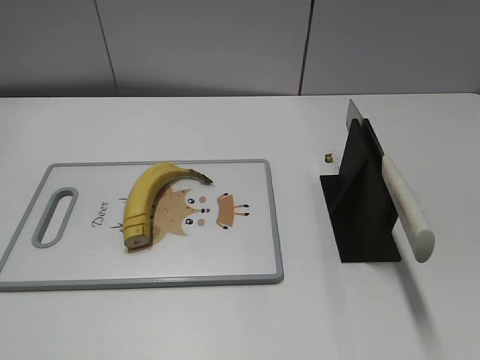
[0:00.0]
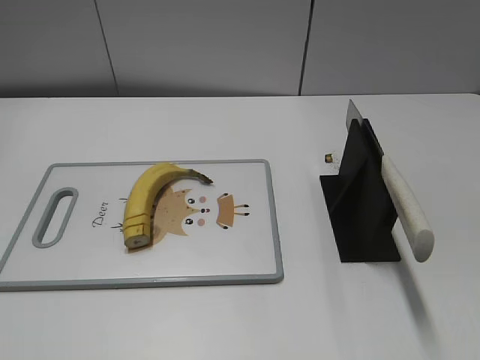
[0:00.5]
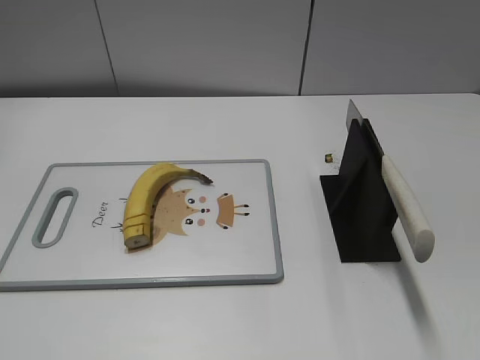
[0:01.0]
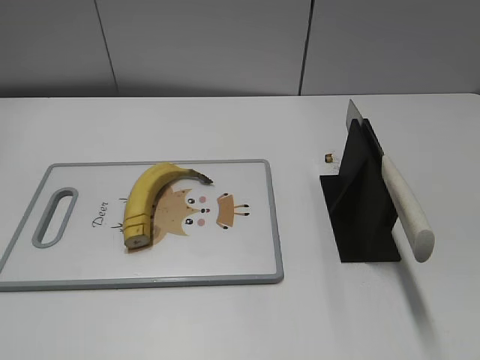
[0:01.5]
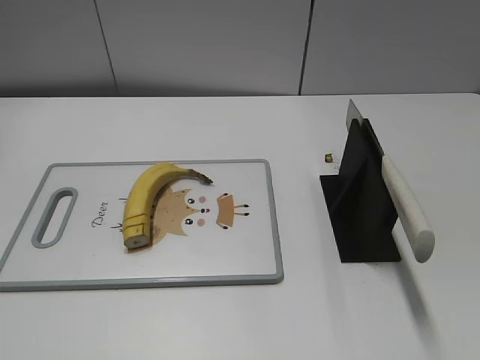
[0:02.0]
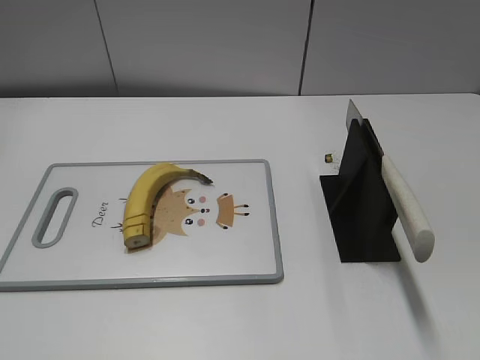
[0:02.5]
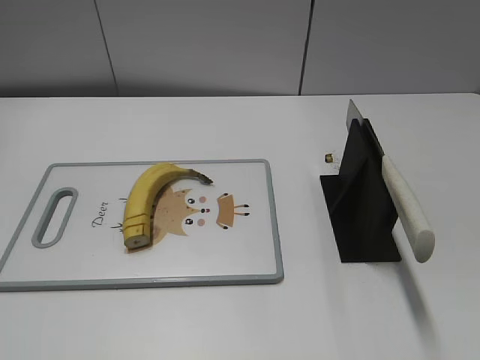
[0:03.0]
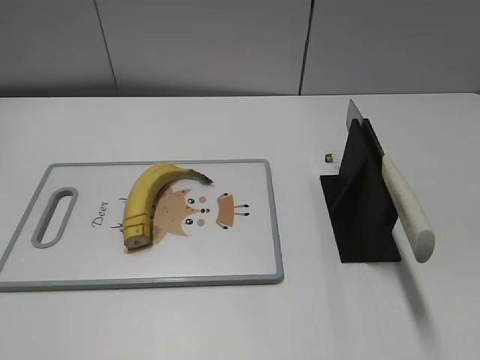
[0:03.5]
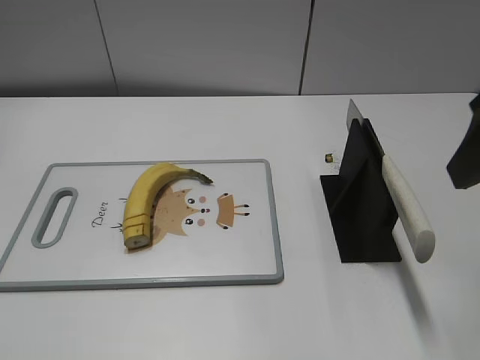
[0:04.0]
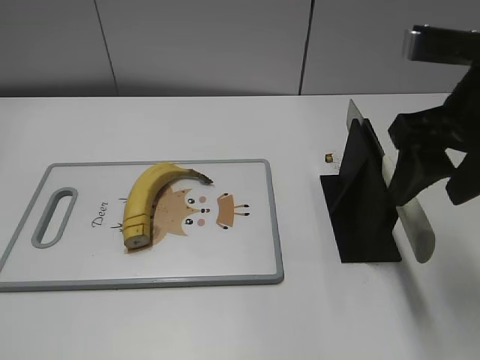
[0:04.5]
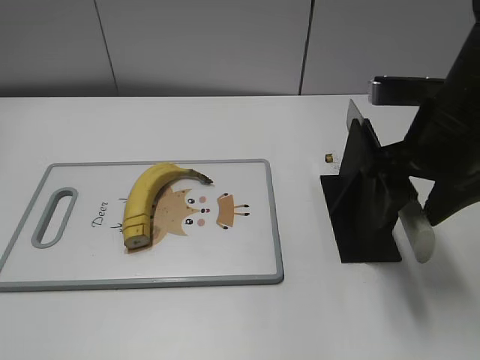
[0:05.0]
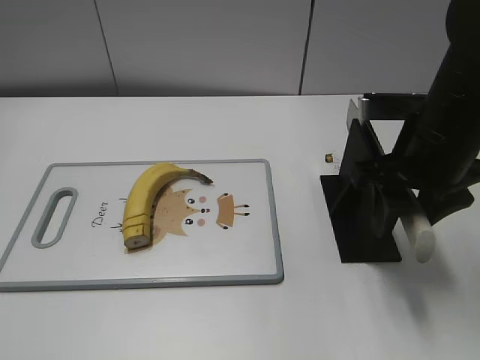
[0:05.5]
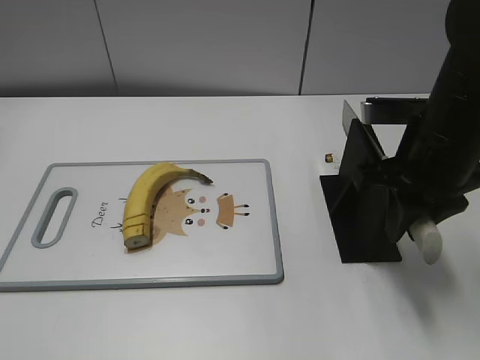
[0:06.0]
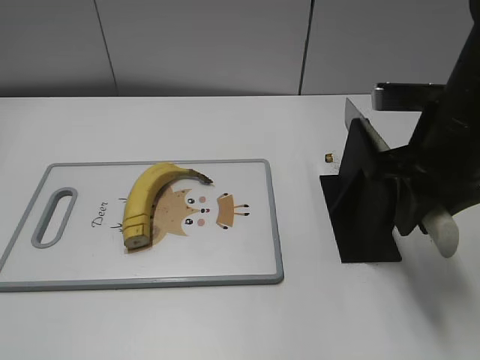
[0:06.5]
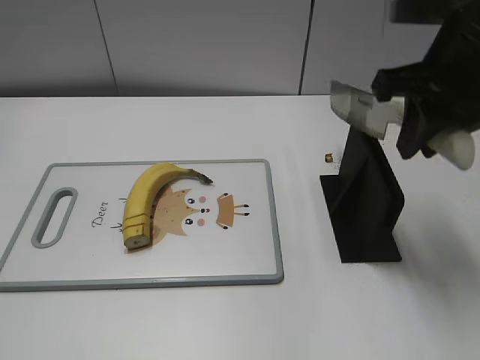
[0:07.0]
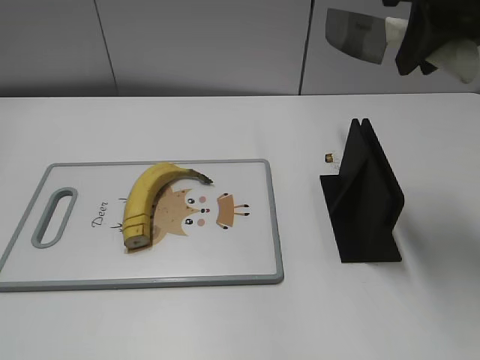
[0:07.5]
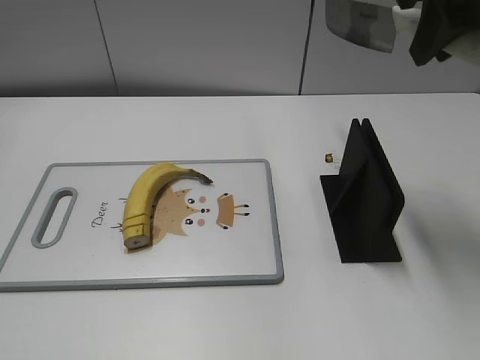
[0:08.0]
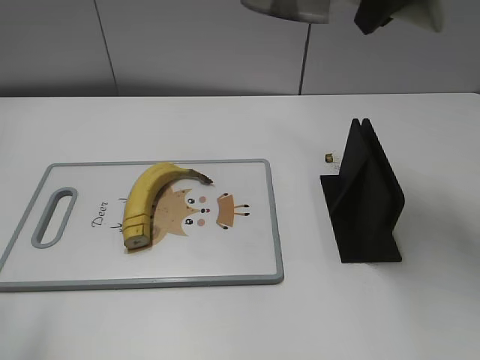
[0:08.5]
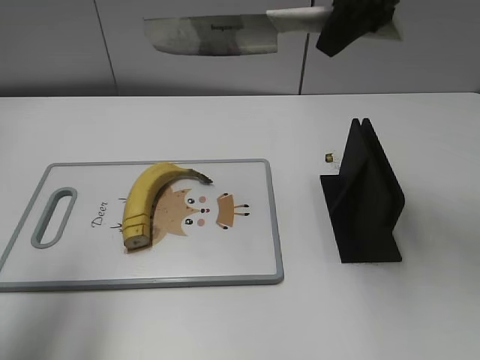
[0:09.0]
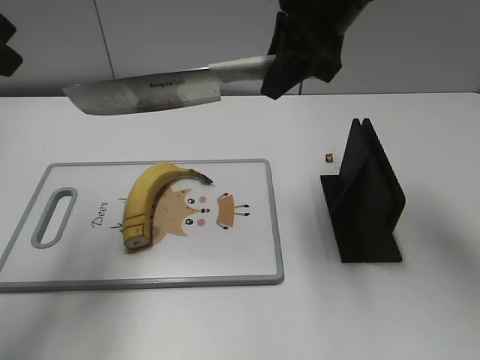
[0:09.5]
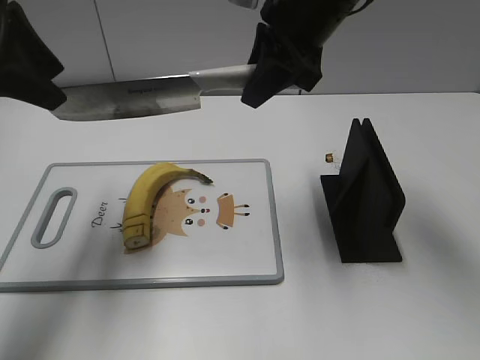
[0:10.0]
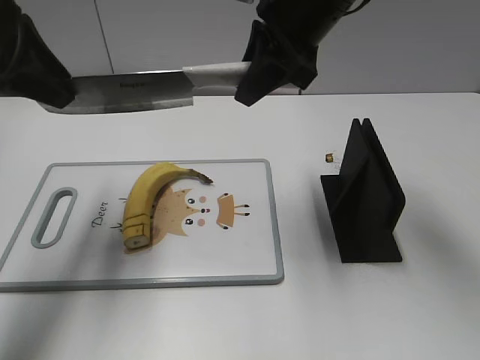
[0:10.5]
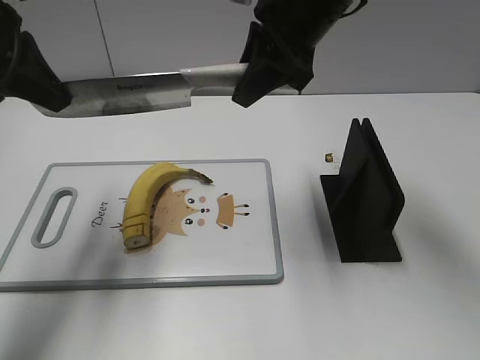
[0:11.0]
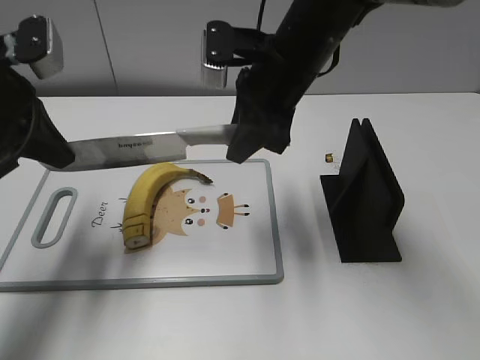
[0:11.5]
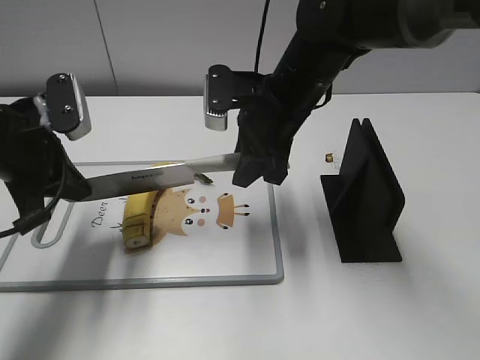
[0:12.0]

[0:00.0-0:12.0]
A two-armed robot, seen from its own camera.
Task of the whole recording: cut banana.
Step, 0:00.0 to 0:07.0: Grab the knife handle with your right hand.
0:02.0 to 0:04.0: The right gripper is displaced forward by some 20 cm.
0:04.0 to 0:06.0: The right gripper heads downward and forward, covering about 15 cm, and closes its fingers.
0:06.0 to 0:08.0: The right gripper goes roughly 15 cm upward.
0:08.0 to 0:10.0: The left gripper travels forward by approximately 30 cm. The right gripper shifts approximately 15 cm to the left, downward and forward.
0:10.0 to 0:12.0: Both grippers move downward, approximately 10 cm. The left gripper closes up.

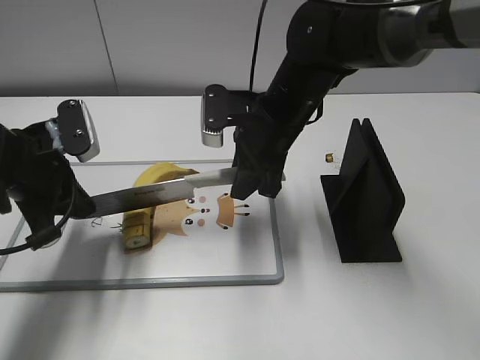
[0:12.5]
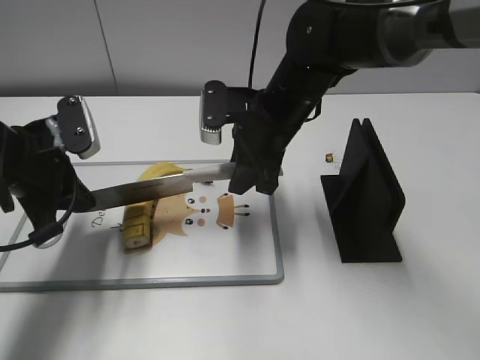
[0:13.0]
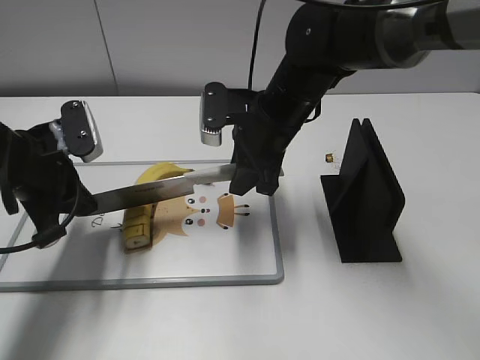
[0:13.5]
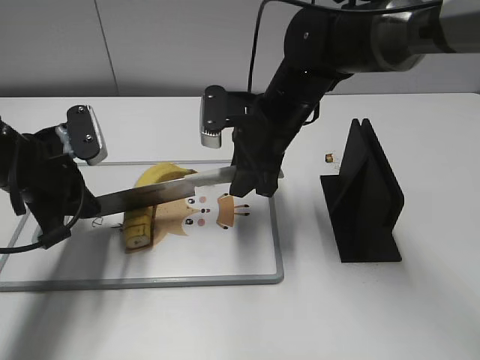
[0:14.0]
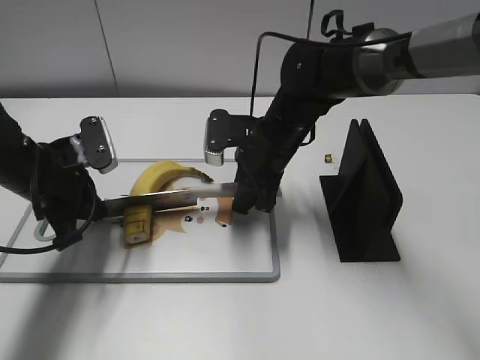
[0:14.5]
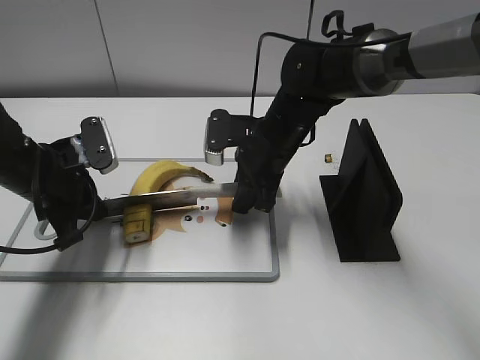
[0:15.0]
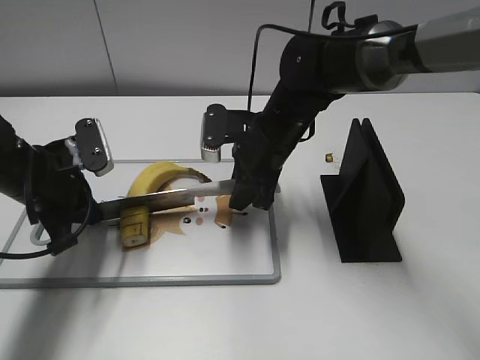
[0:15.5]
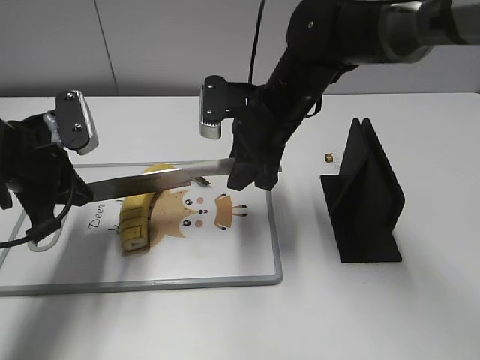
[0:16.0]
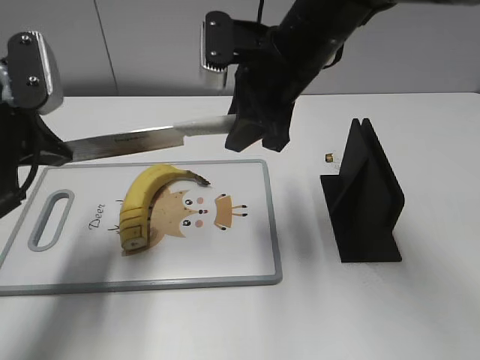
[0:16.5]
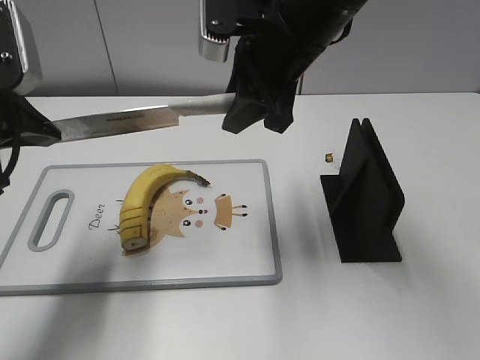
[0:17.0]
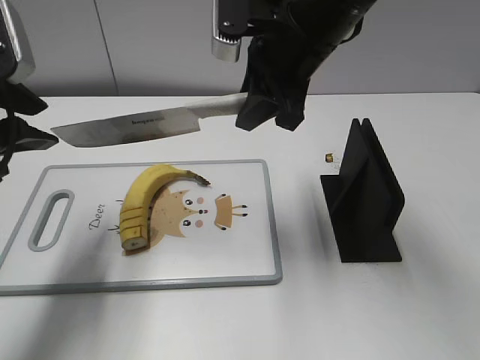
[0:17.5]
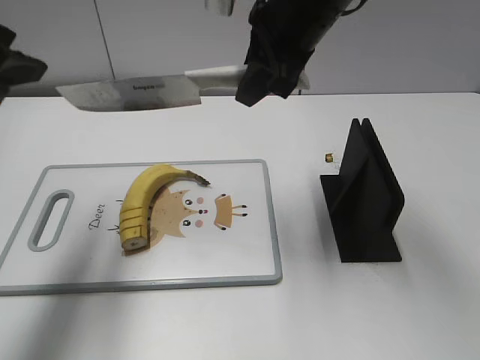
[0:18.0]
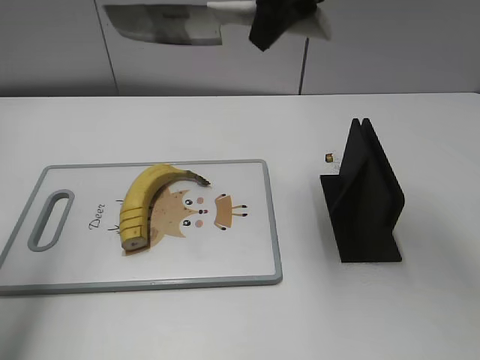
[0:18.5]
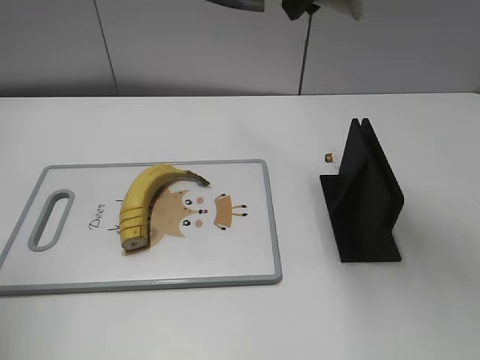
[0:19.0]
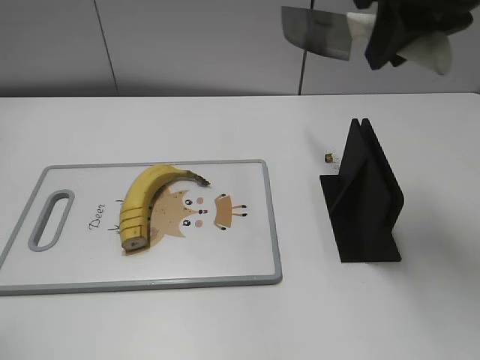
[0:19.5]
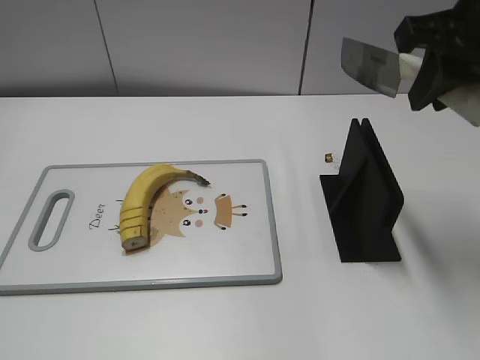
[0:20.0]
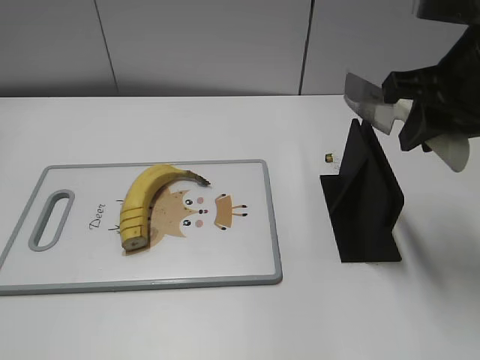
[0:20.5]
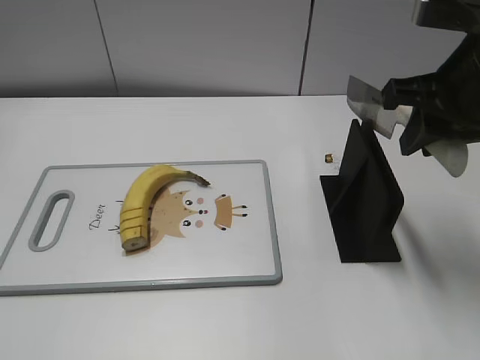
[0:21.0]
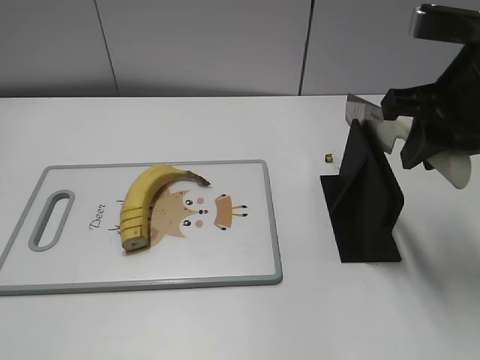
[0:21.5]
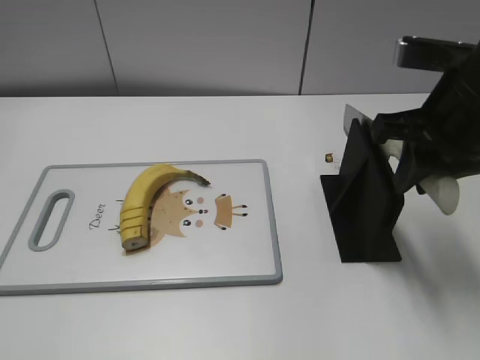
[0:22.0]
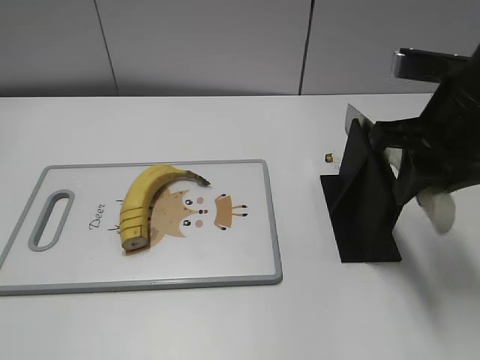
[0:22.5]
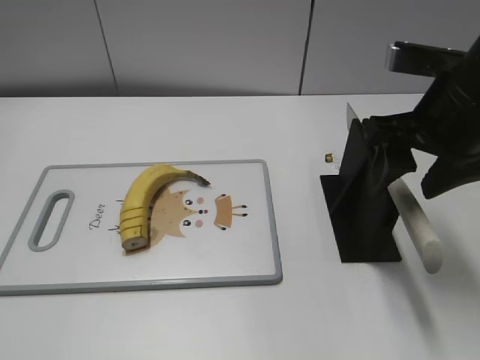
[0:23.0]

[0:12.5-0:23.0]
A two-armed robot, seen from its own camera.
Task of the whole recording: cut banana.
Step, 0:13.5 to 0:19.0: Cut the banana with your right hand.
Step, 0:19.5 to 0:21.5: Lift the knife with your right hand.
0:12.5 to 0:14.5: The left gripper moves roughly 5 cm, while the right gripper goes approximately 5 cm downward.
0:14.5 to 0:16.5: Both grippers move upward, about 15 cm.
0:16.5 to 0:19.0: The right gripper heads upward, covering roughly 15 cm, while the left gripper shifts roughly 20 cm upward and to the left, and opens.
0:19.0 to 0:21.0: The right gripper is displaced to the right, downward and backward by some 15 cm. The left gripper travels backward and downward by approximately 25 cm.
0:21.0 to 0:23.0: The right gripper opens.

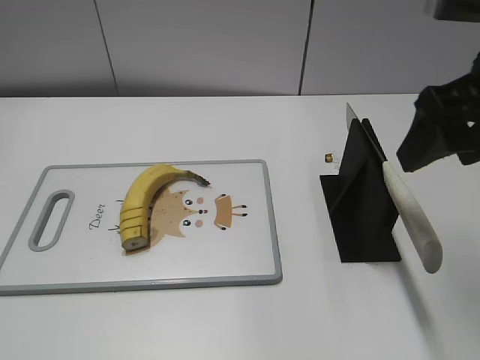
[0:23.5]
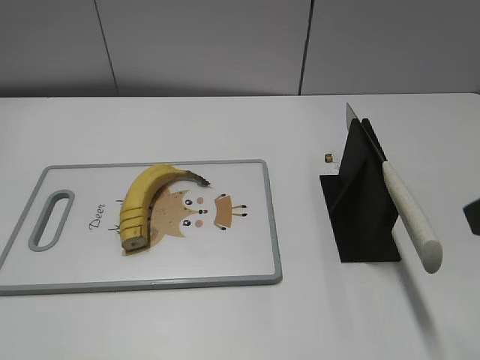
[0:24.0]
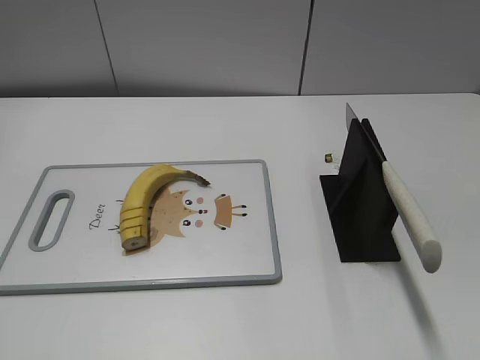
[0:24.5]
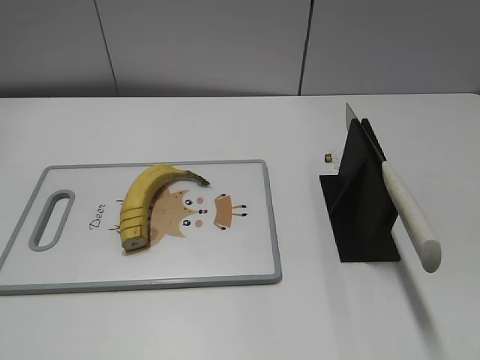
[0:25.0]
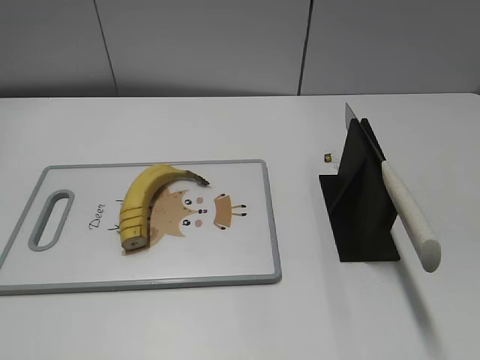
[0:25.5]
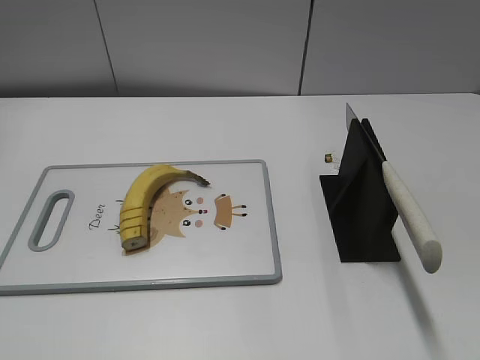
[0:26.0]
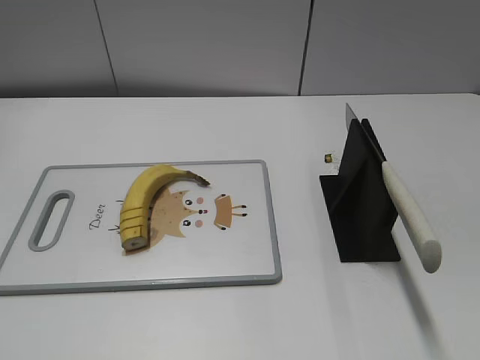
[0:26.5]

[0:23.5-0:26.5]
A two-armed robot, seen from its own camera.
Task of the whole recording: cut banana.
Step, 0:23.5 to 0:26.5: Place the knife on the storage rack with your right hand.
0:23.5 to 0:25.0: The right gripper shifts about 25 cm backward.
